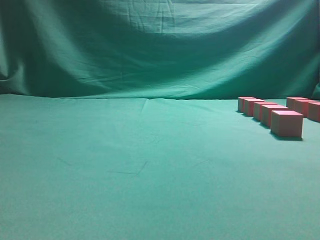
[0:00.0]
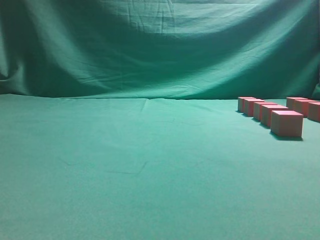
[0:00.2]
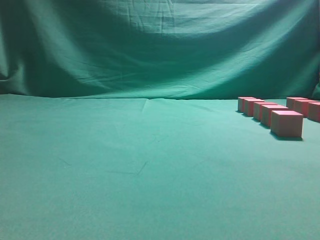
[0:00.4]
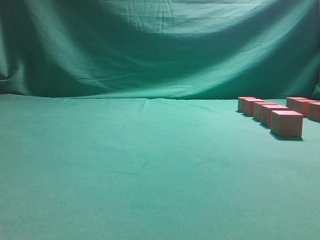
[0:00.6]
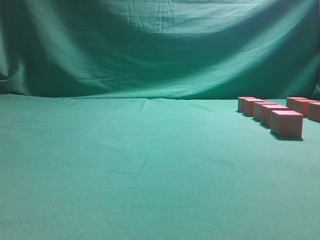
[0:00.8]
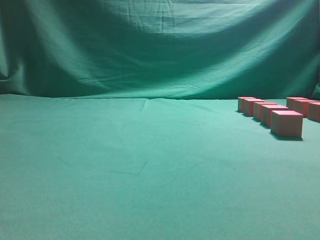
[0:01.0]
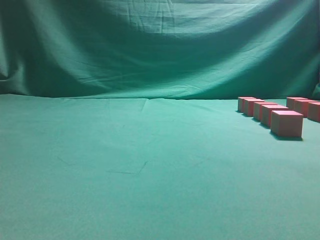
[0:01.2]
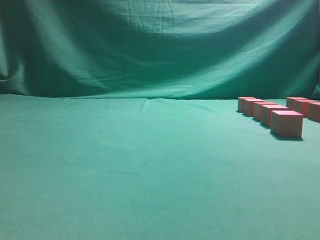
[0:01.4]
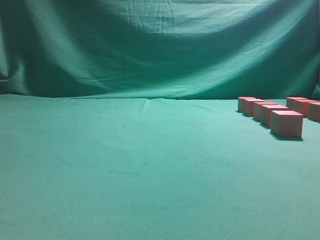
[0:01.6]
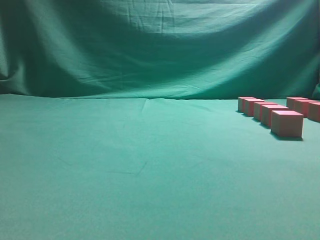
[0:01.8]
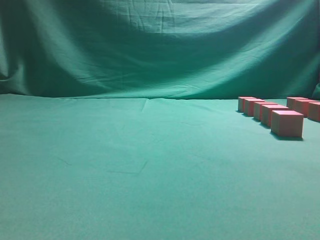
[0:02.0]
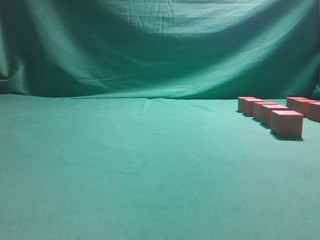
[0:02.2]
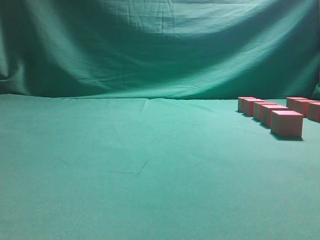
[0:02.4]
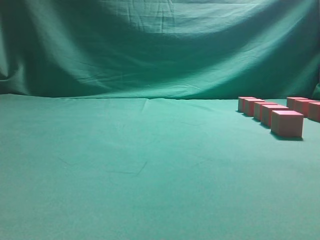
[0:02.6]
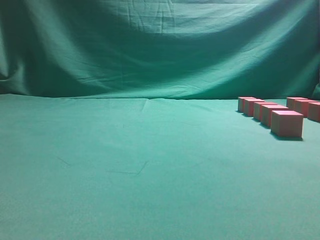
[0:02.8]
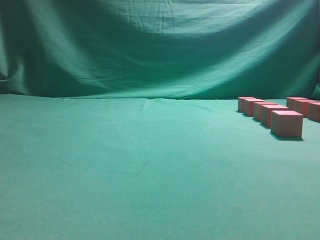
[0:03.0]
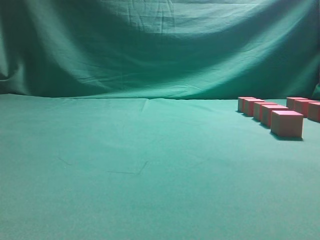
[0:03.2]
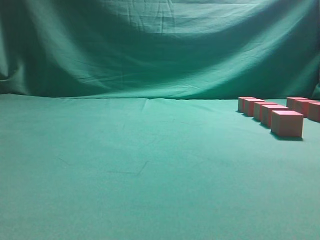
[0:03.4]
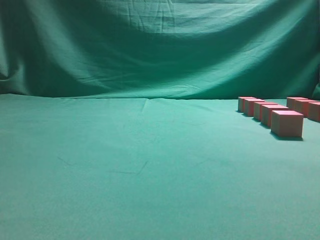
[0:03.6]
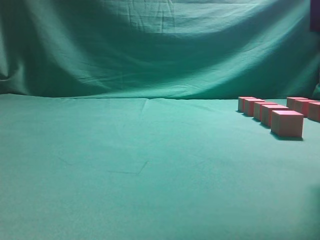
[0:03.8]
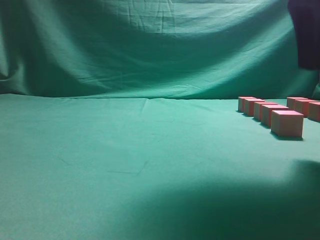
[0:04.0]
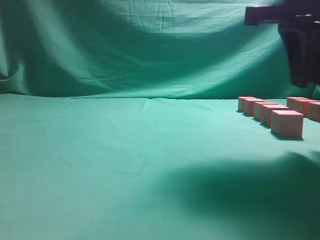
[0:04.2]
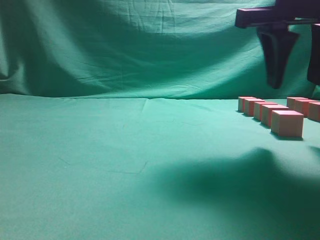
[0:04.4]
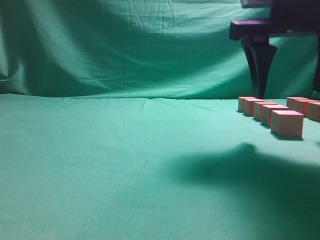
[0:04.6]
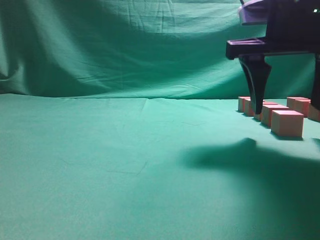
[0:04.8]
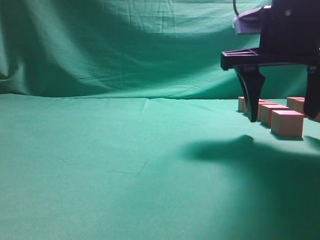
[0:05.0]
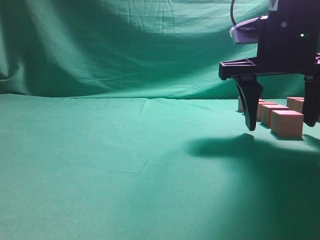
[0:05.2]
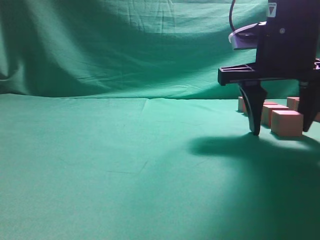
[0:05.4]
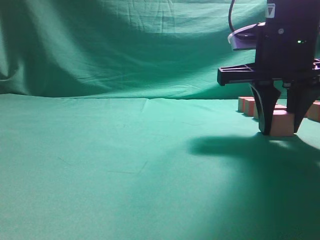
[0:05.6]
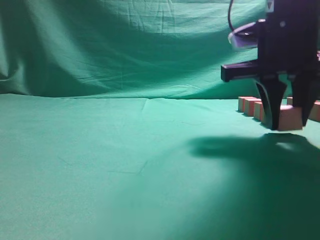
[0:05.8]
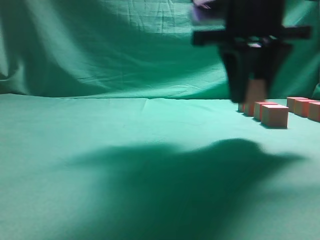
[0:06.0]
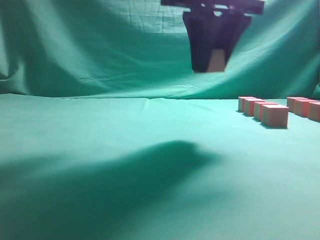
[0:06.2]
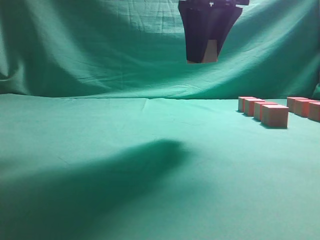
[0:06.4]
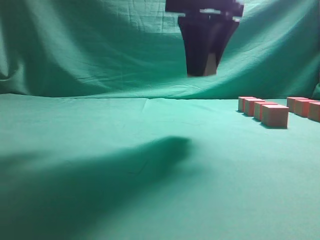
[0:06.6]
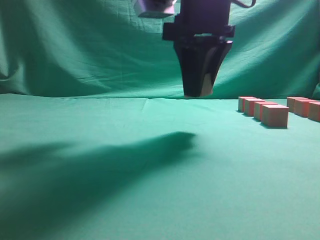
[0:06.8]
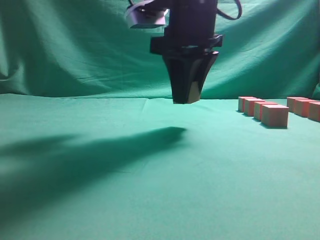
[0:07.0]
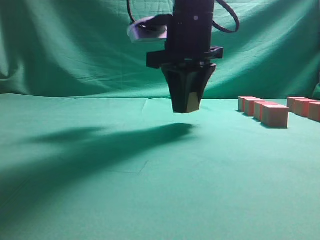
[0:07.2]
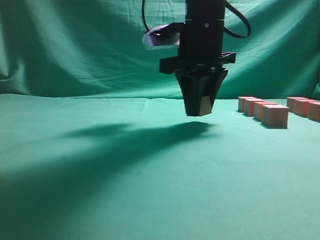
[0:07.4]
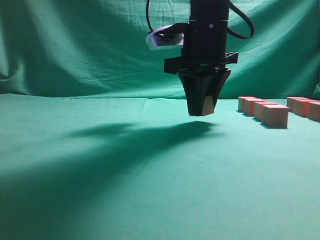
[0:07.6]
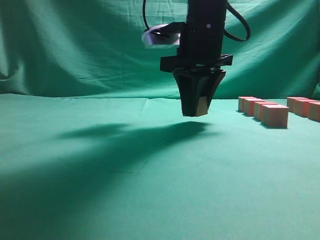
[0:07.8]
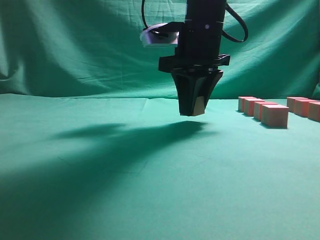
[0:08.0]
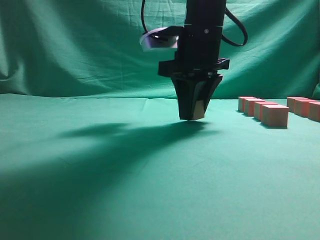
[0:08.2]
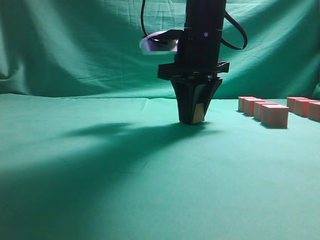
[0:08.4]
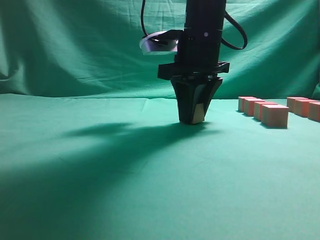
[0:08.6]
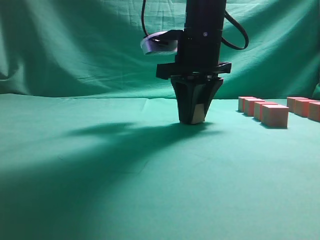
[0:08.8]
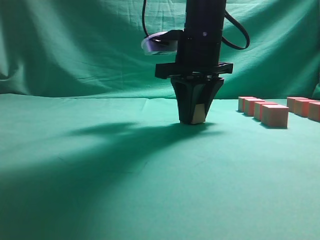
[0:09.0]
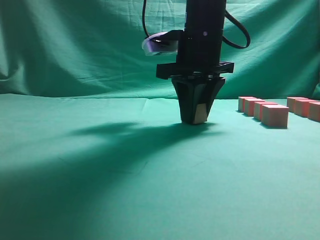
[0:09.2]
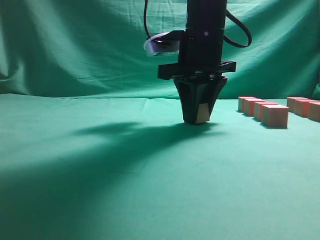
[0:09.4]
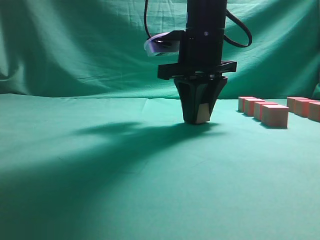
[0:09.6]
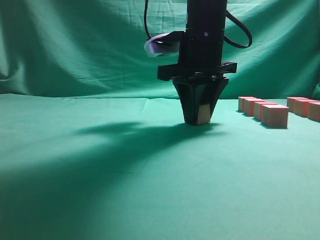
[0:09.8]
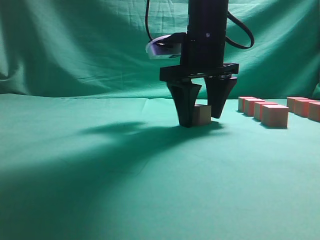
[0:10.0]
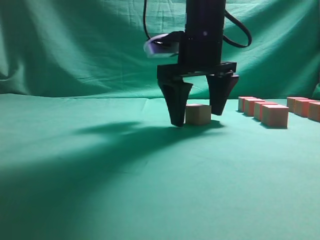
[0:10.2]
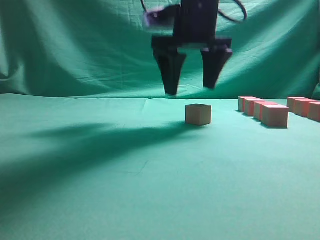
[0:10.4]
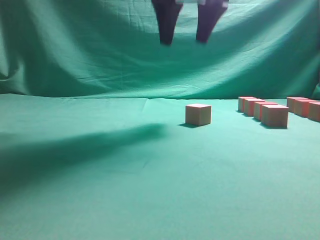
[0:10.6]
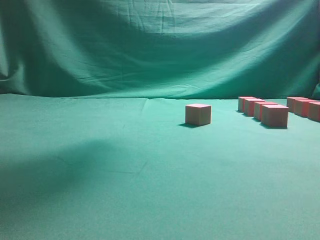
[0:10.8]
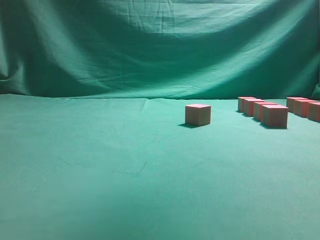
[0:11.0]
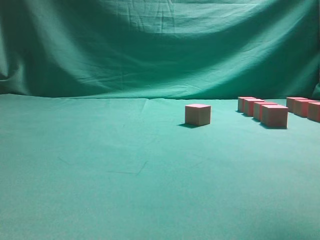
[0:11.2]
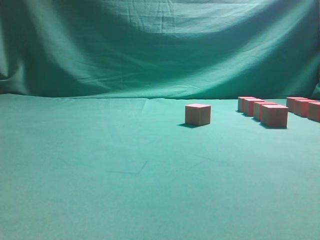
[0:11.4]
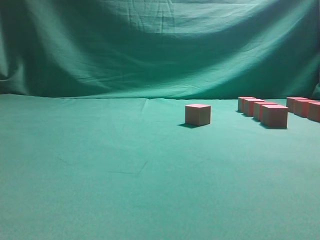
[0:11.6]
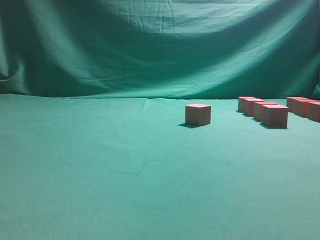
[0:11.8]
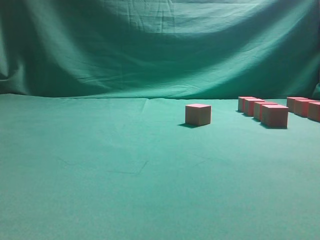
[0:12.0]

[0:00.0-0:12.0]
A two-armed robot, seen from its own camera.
Task of the whole recording: pick up the multiple cubes in two columns one by one and place them in another position on the table.
Step, 0:00.0 to 0:05.6: Pick up the block on the table.
Step, 0:06.0 to 0:10.4: Place the block at the correct position to assemble the letter S.
0:03.0 to 0:04.4: The right gripper travels forward, downward and to the left by about 20 cm, and opens.
0:04.4 to 0:06.0: The right gripper travels to the left by some 5 cm.
0:06.0 to 0:07.6: The right gripper moves forward, approximately 10 cm.
0:07.6 to 0:09.0: The grippers stay close to where they were, moving slightly.
0:09.0 to 0:10.4: The right gripper goes some 5 cm upward, and opens.
0:10.4 to 0:12.0: The right gripper goes roughly 25 cm to the right and backward.

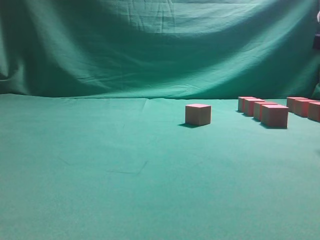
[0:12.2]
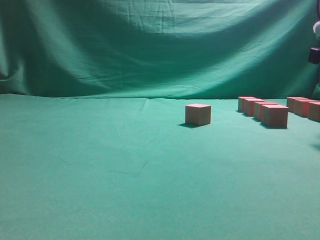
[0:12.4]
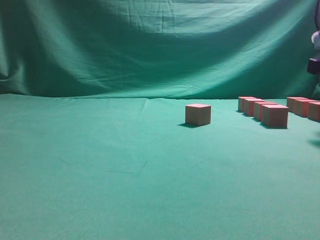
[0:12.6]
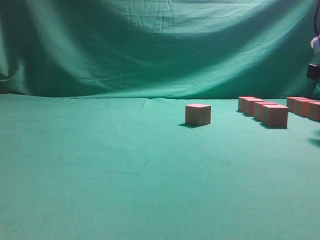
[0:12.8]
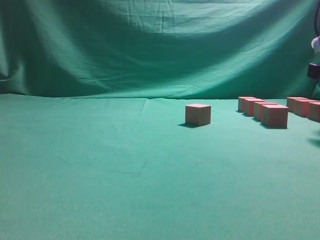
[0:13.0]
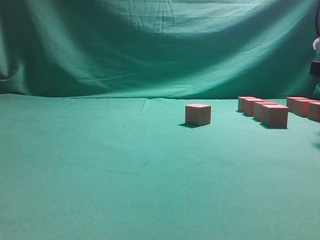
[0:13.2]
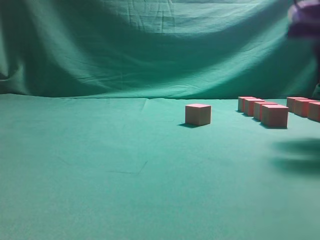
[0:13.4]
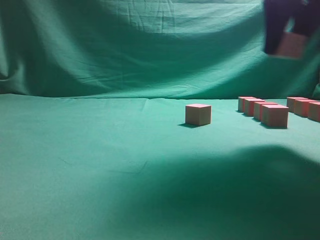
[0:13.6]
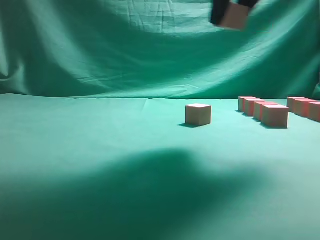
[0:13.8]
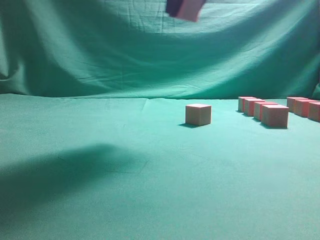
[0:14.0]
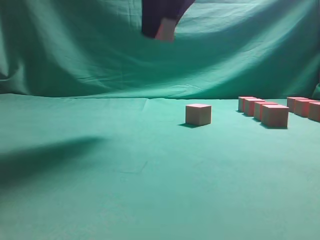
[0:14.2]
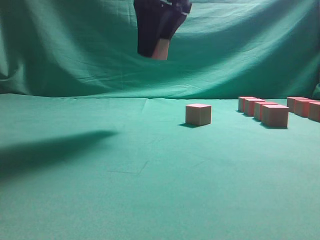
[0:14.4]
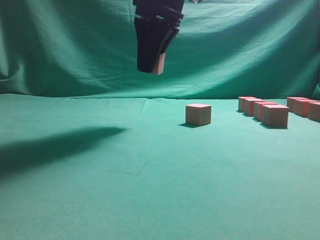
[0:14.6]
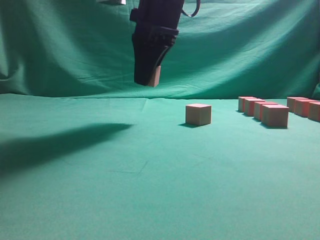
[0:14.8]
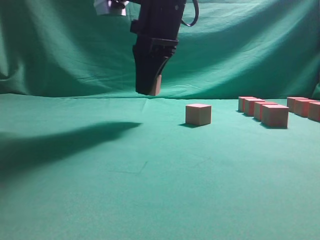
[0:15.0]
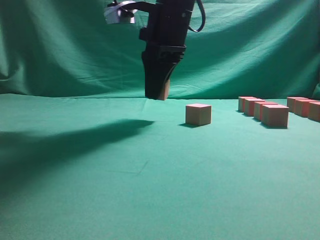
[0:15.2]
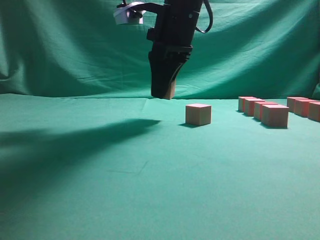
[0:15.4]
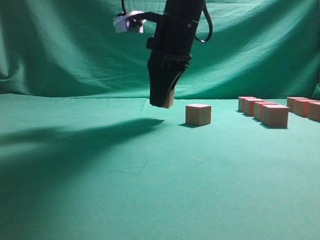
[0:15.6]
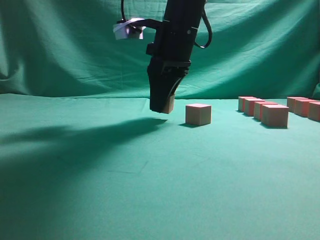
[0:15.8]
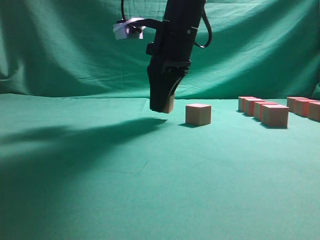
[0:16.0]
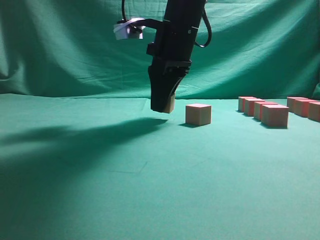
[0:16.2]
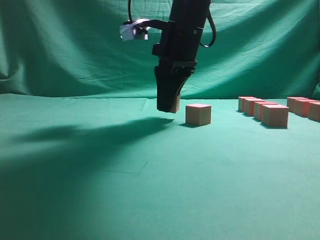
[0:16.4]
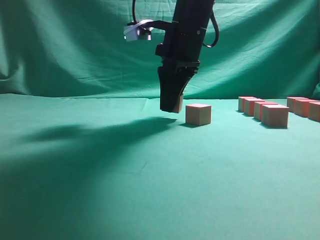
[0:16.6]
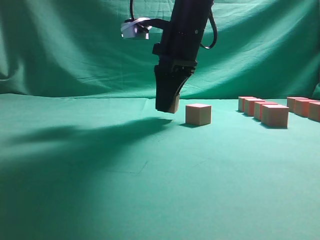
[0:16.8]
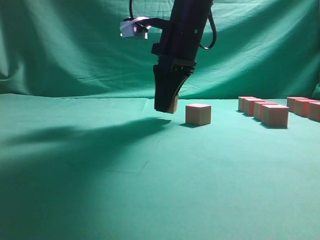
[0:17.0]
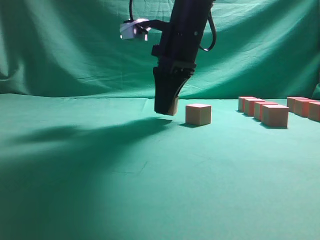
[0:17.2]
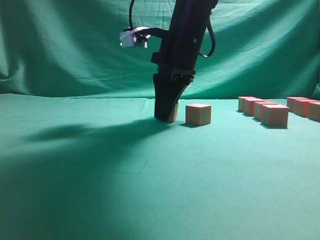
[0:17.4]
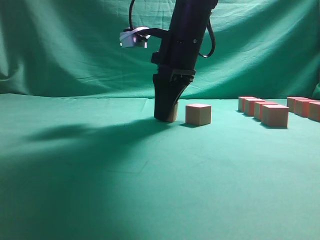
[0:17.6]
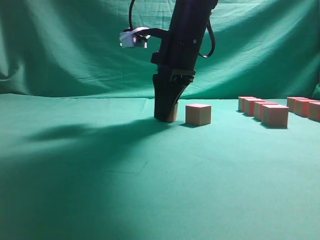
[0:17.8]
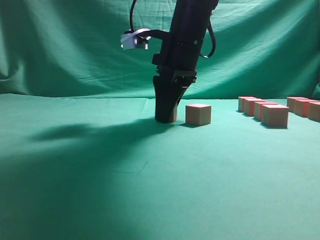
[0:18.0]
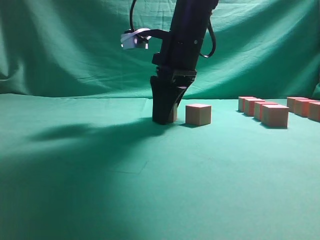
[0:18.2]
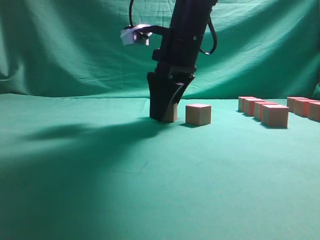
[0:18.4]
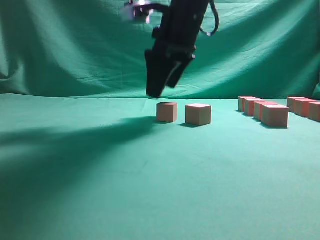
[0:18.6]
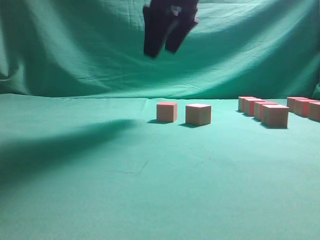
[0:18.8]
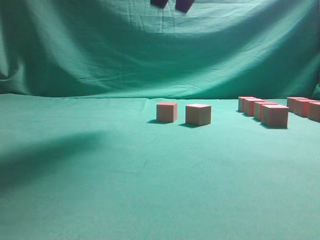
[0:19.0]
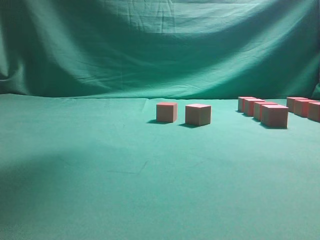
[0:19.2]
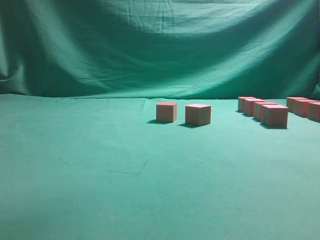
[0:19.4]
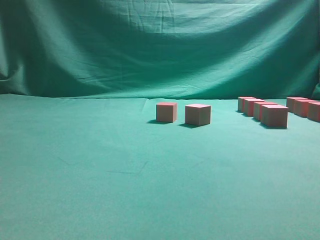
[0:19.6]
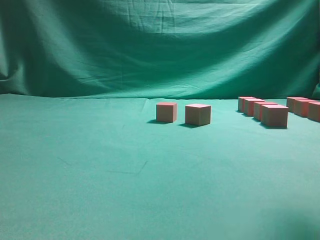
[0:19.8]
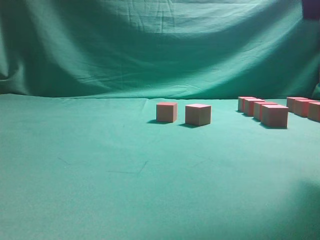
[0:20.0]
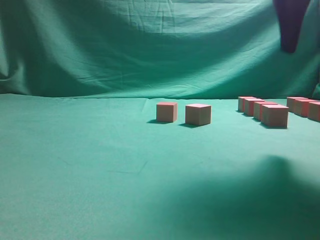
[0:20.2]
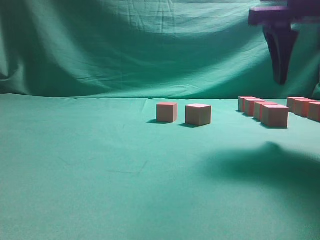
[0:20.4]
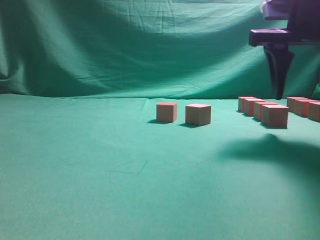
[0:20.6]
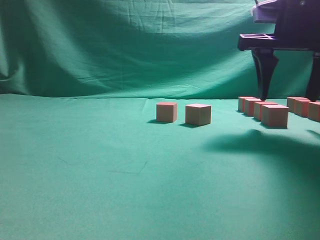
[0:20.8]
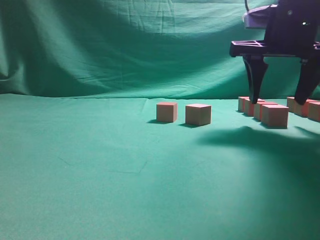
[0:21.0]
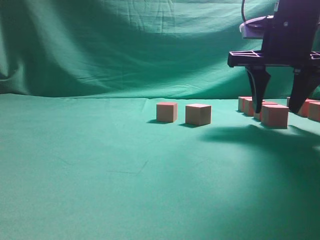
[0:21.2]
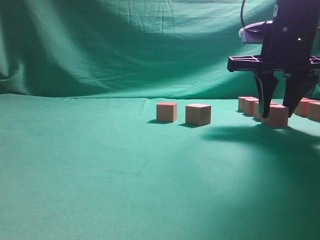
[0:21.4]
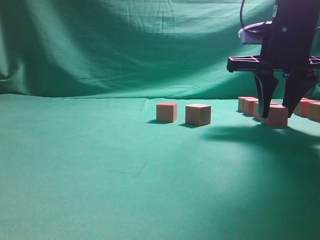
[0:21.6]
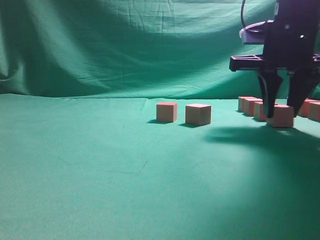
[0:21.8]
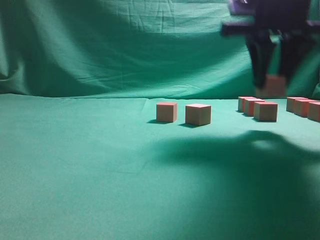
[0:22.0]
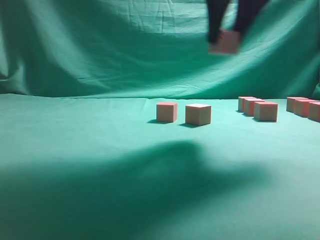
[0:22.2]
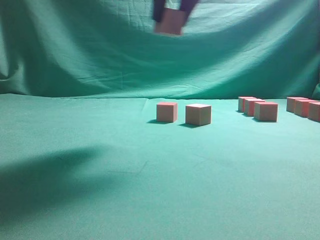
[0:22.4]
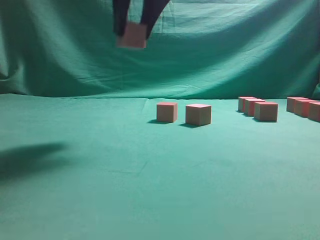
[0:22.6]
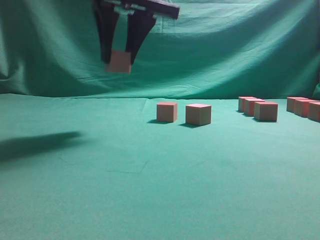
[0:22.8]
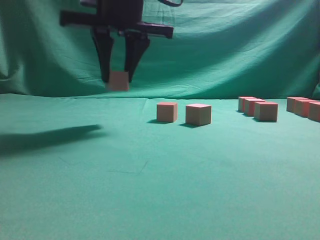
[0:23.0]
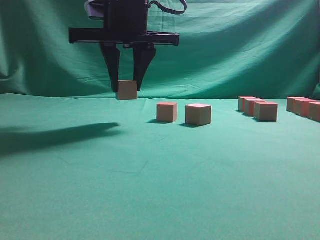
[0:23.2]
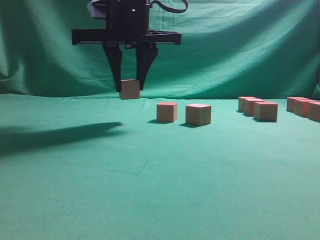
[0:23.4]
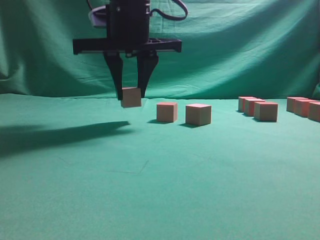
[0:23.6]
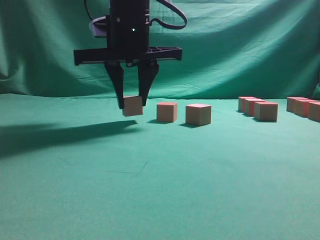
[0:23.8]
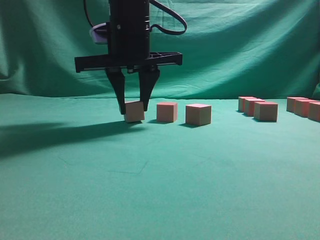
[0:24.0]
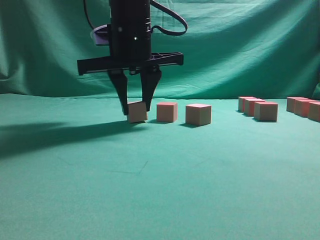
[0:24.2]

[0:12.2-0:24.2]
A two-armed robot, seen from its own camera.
Task of the whole recording: pick up the multiple cubes in two columns one by one and place them in another position on the table.
Step, 0:13.4 to 0:18.6: Place the block at the correct position to assemble the letter S.
Step, 0:18.8 to 0:21.8: Pick up the block on the table.
0:12.2 to 0:13.8: The right gripper shifts about 20 cm to the left and upward, and closes.
0:13.8 to 0:15.2: The right gripper heads to the left, downward and forward, covering about 15 cm.
0:16.6 to 0:18.2: The right gripper opens its fingers.
0:18.2 to 0:19.8: The right gripper travels upward, to the right and backward by some 30 cm.
0:19.8 to 0:21.2: The right gripper shifts roughly 20 cm downward and forward.
0:21.2 to 0:22.6: The right gripper goes roughly 20 cm to the left and upward.
0:22.6 to 0:24.2: The right gripper travels downward and forward by some 10 cm.
